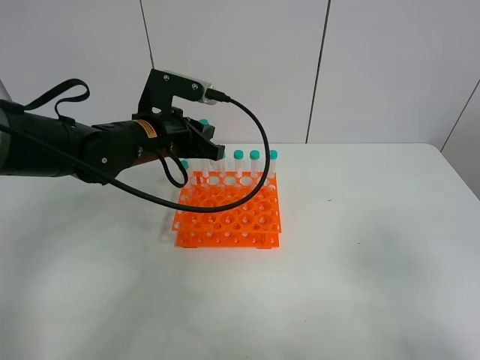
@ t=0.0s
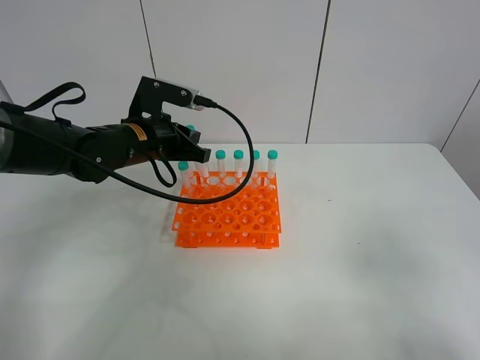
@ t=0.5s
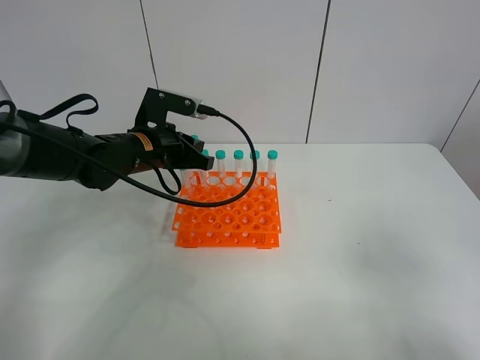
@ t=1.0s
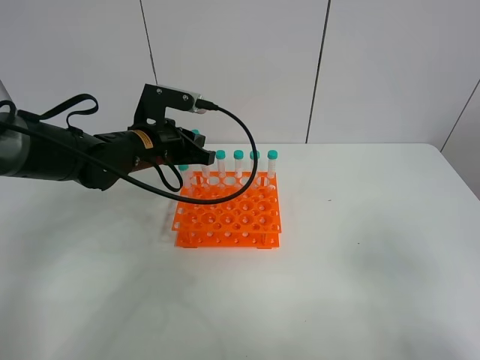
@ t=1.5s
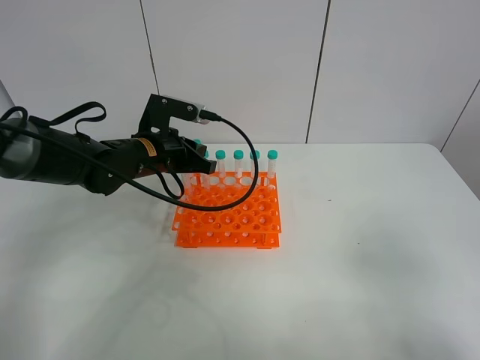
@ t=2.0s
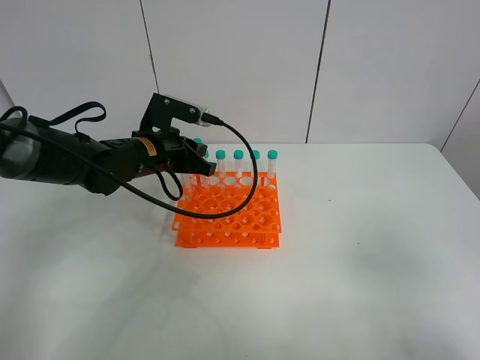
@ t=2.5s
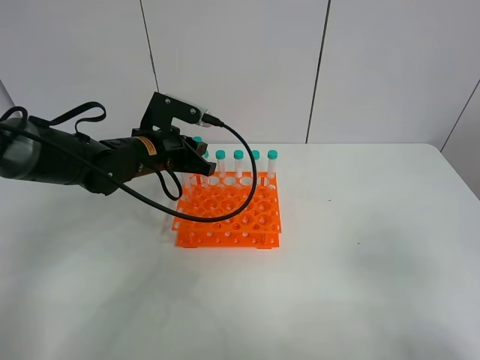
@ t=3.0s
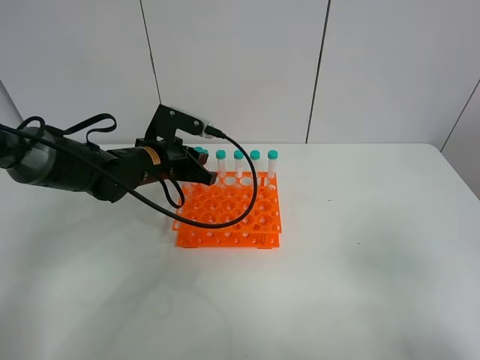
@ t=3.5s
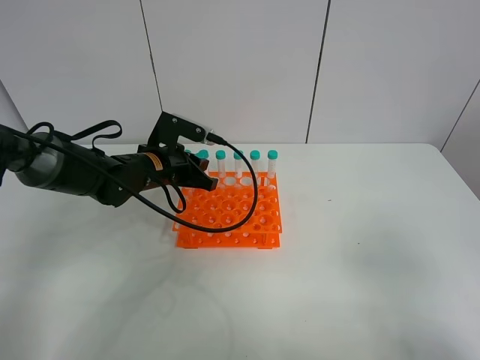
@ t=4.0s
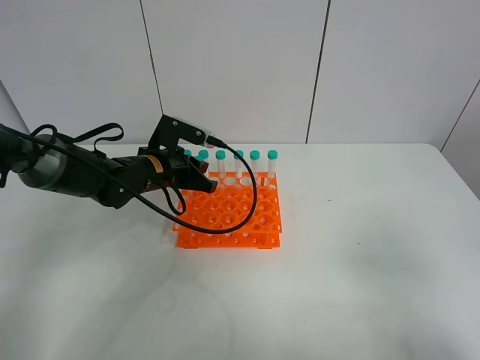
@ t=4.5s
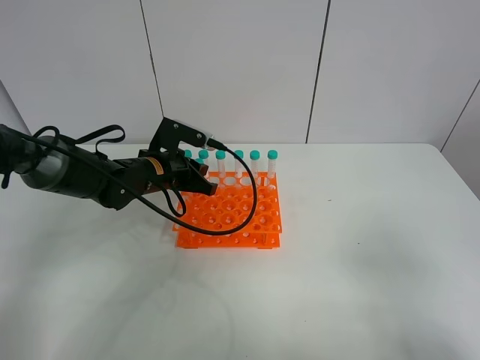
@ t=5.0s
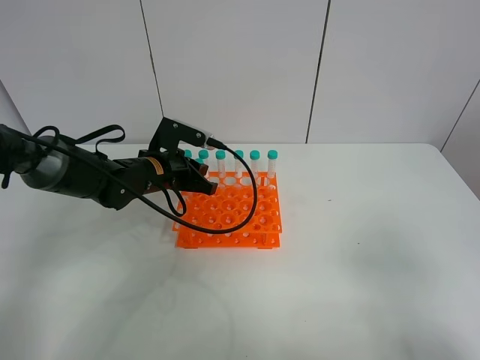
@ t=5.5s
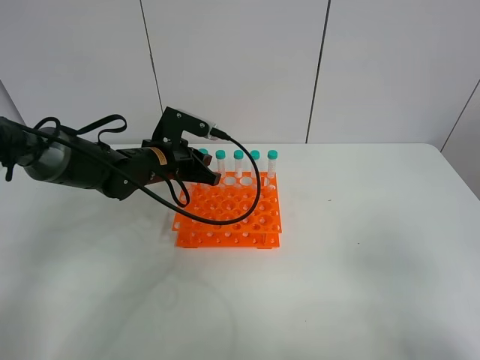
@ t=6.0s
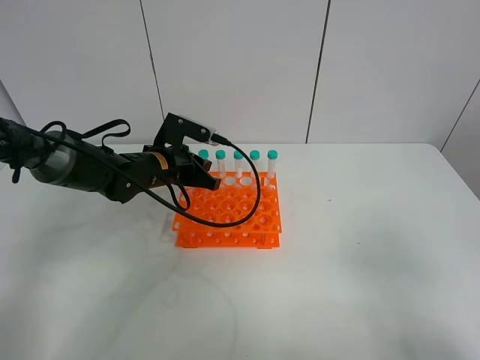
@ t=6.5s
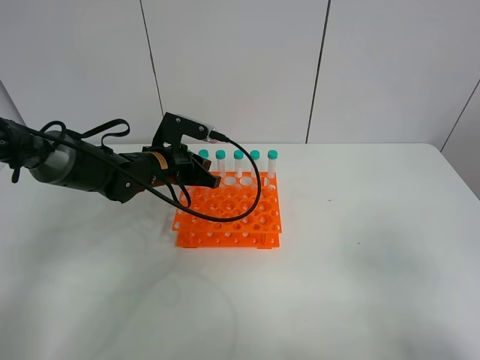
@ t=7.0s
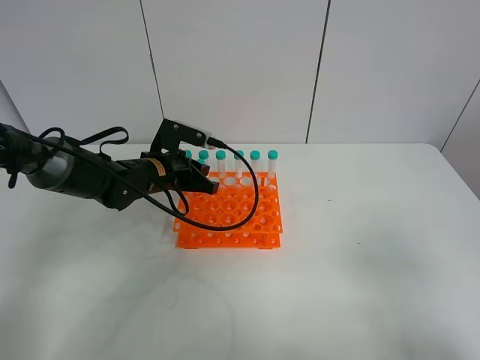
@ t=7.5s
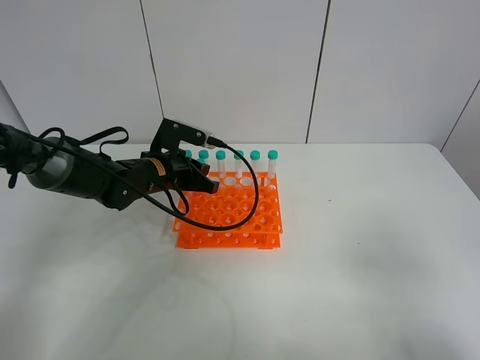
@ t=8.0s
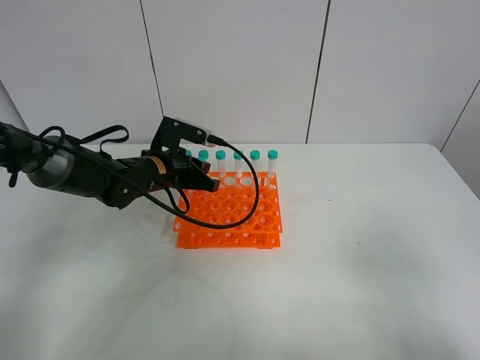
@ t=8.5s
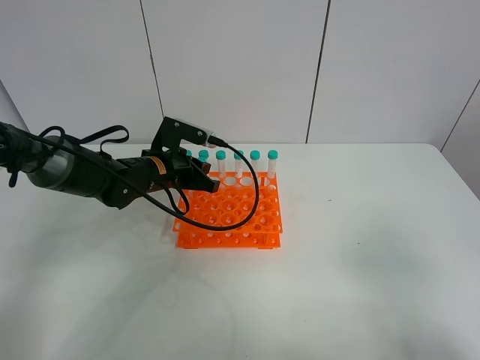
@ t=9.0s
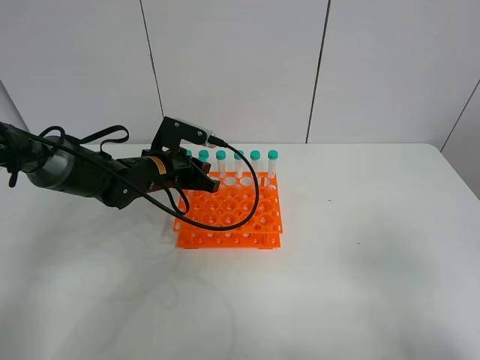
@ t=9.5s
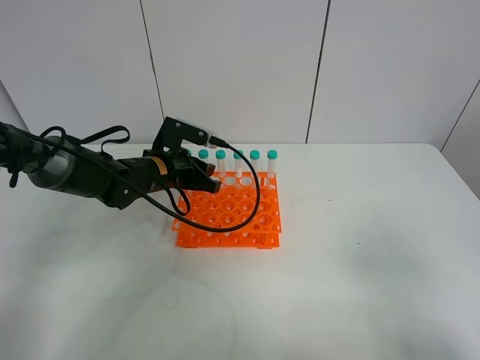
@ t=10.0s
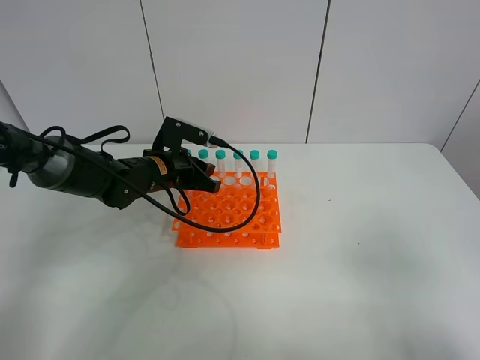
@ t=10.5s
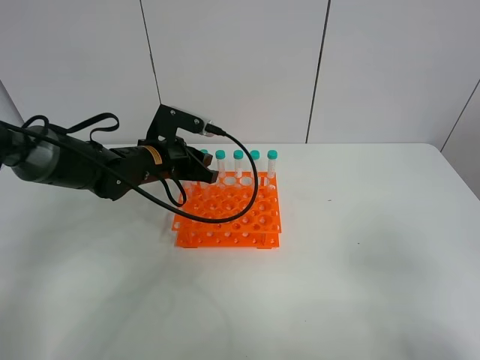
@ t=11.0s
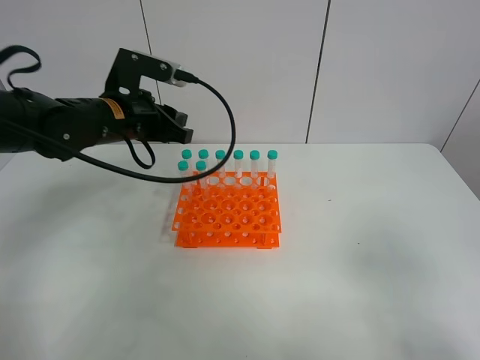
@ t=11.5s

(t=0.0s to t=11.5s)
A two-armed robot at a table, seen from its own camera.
Task of the whole recording: Put the test tube on the table back onto the test tube rack.
t=0.0s - t=2.0s: The grippers move only a little.
t=2.0s - t=4.0s: The grippers move only a little.
t=4.0s - t=6.0s: Both grippers stay about where they are.
t=6.0s - t=7.5s: The grippers move only a little.
t=7.5s - t=9.5s: The two grippers keep their place.
t=9.5s - t=11.5s: The left gripper heads upward, covering some 10 cm.

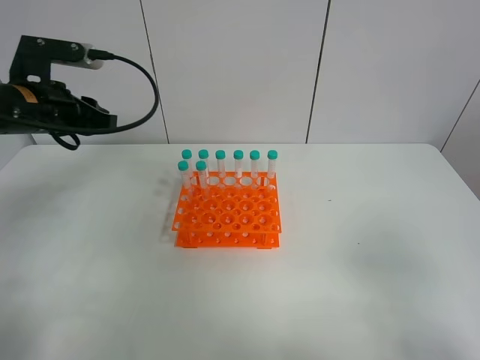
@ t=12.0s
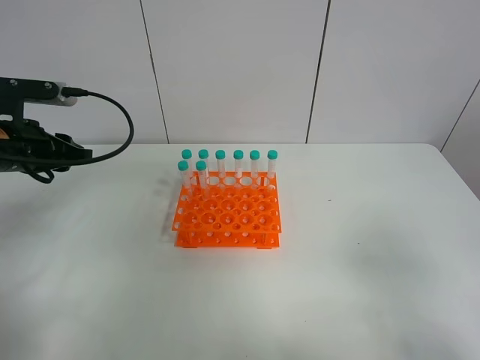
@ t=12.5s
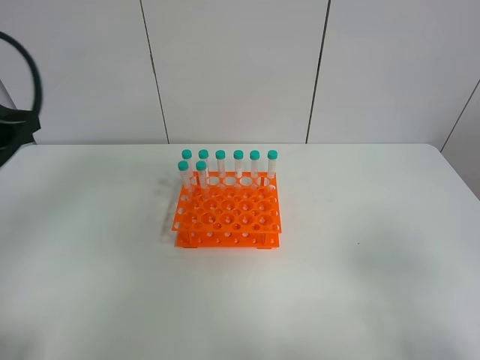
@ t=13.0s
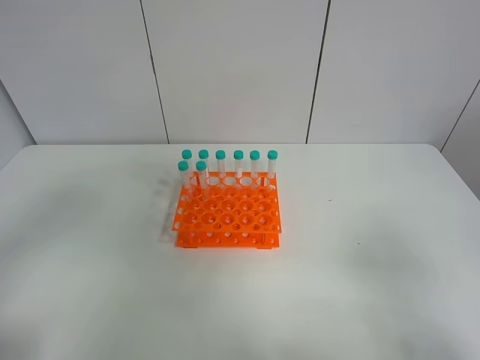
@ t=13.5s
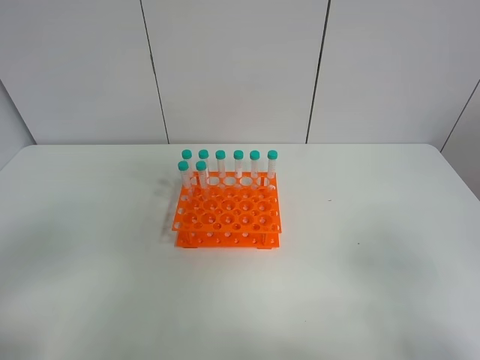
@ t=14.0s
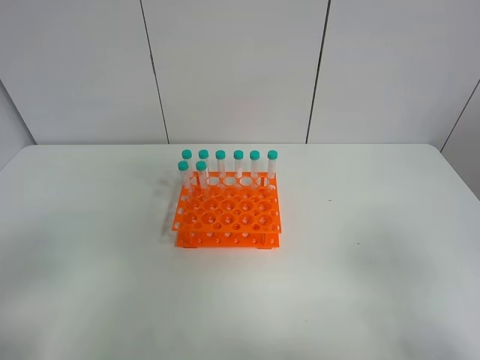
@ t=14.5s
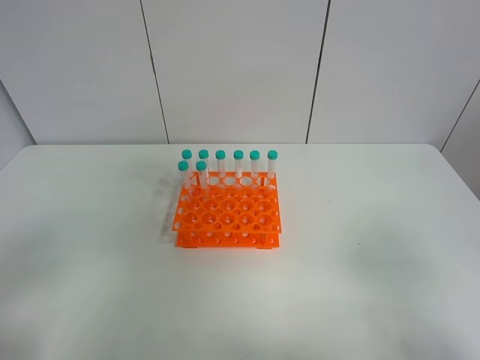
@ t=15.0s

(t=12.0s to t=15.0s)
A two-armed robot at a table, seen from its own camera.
Task of the whole recording: Put the test tube on the table back onto the test tube rack.
t=12.0s - t=13.5s: The left gripper heads backward, covering some 25 cm.
